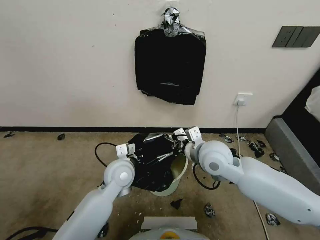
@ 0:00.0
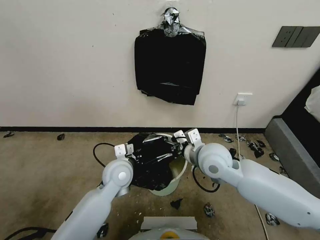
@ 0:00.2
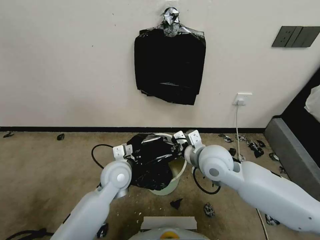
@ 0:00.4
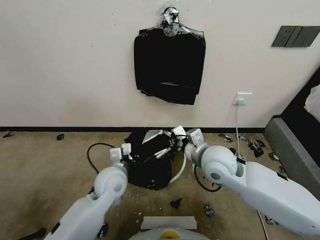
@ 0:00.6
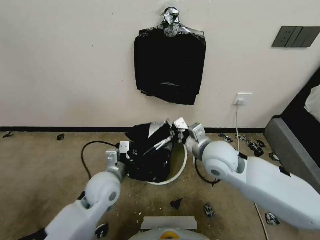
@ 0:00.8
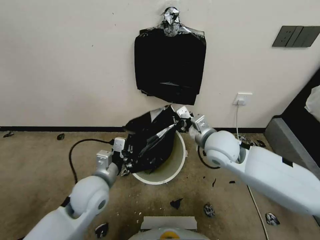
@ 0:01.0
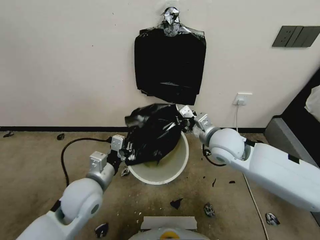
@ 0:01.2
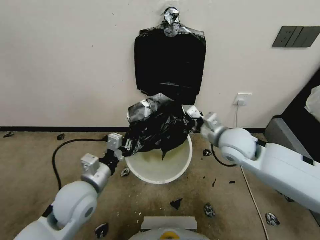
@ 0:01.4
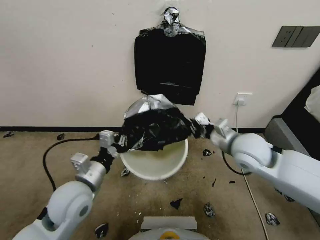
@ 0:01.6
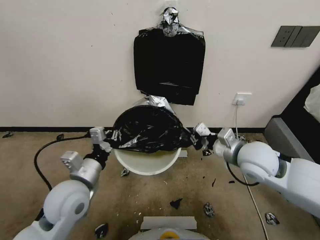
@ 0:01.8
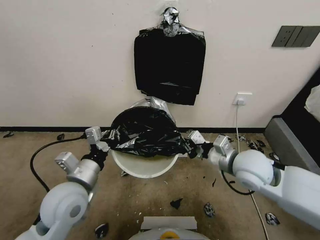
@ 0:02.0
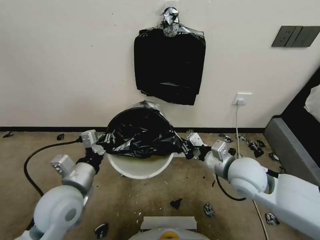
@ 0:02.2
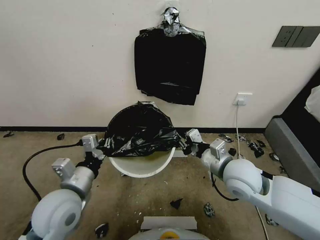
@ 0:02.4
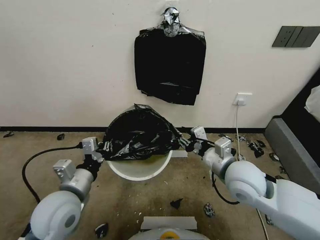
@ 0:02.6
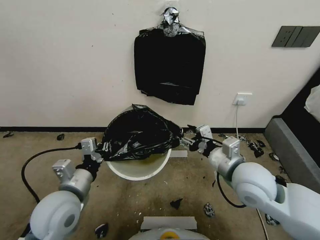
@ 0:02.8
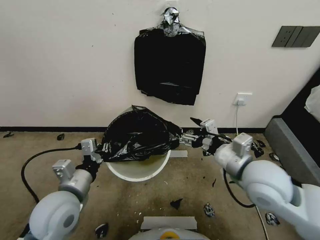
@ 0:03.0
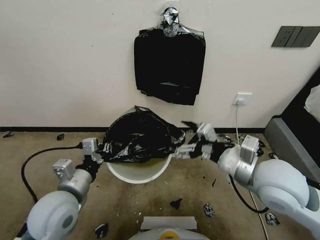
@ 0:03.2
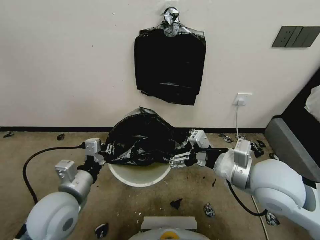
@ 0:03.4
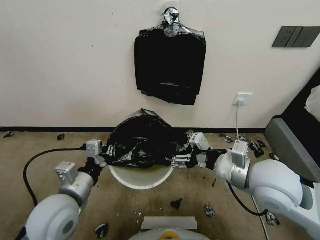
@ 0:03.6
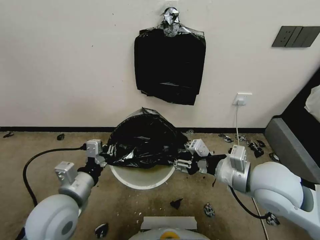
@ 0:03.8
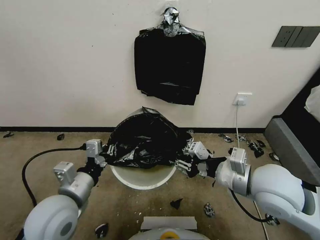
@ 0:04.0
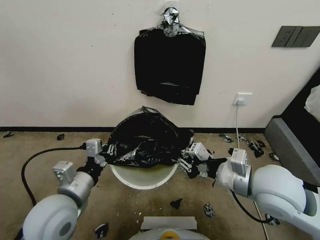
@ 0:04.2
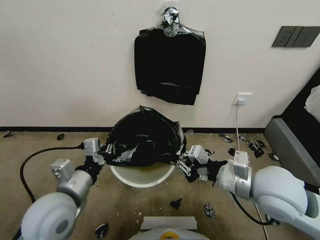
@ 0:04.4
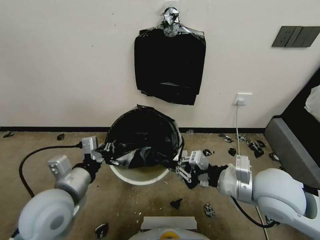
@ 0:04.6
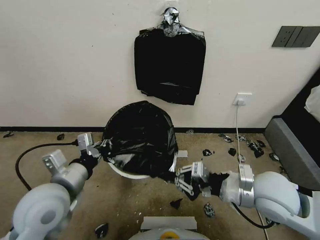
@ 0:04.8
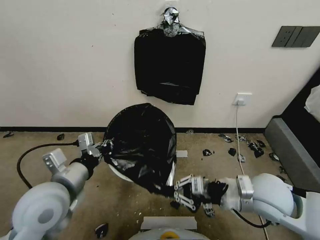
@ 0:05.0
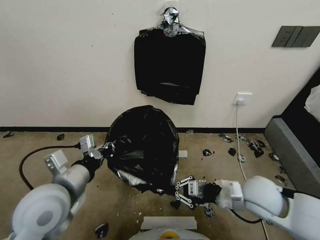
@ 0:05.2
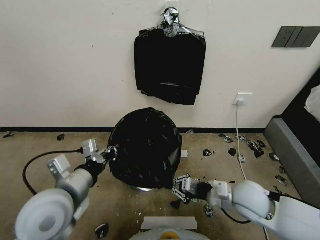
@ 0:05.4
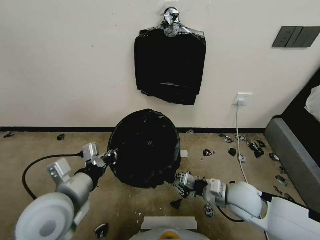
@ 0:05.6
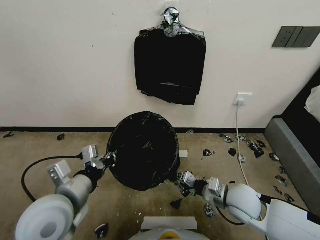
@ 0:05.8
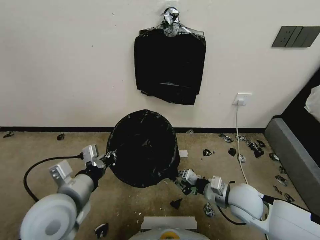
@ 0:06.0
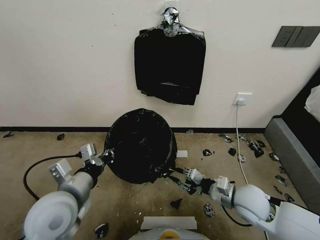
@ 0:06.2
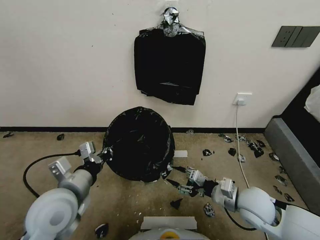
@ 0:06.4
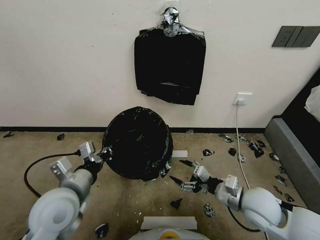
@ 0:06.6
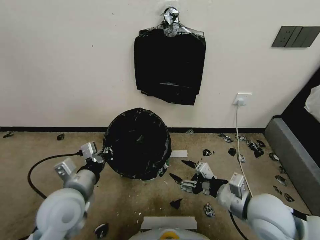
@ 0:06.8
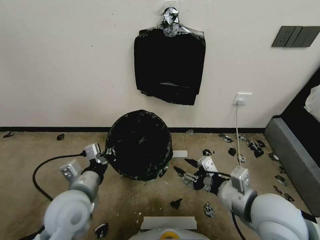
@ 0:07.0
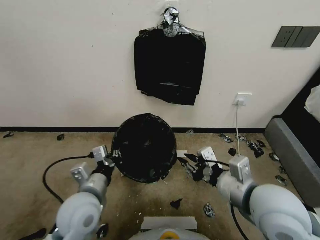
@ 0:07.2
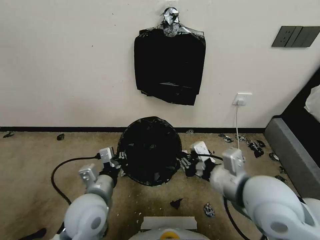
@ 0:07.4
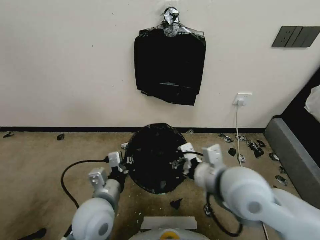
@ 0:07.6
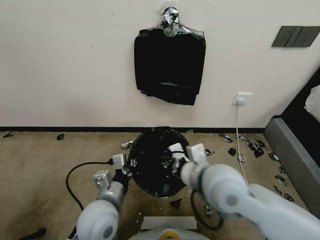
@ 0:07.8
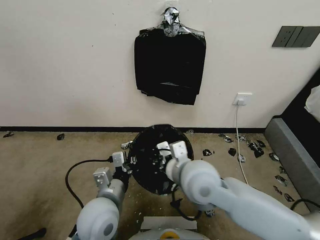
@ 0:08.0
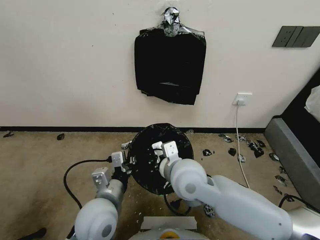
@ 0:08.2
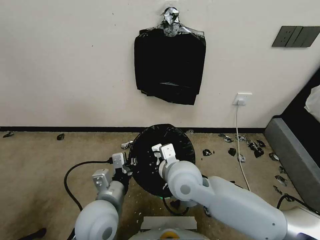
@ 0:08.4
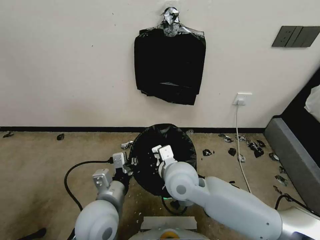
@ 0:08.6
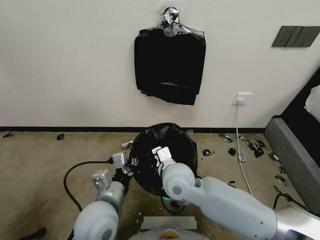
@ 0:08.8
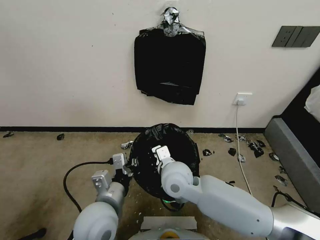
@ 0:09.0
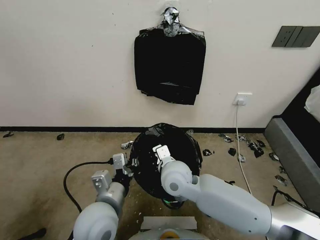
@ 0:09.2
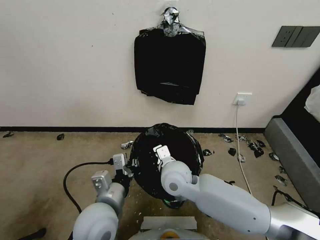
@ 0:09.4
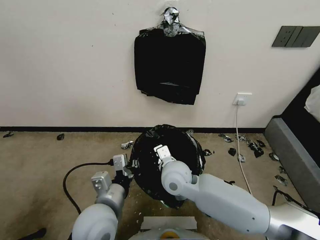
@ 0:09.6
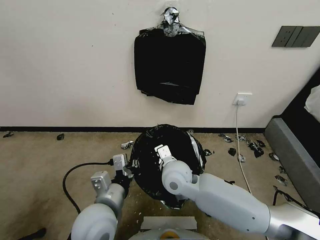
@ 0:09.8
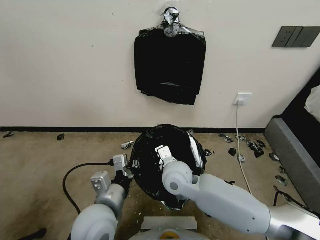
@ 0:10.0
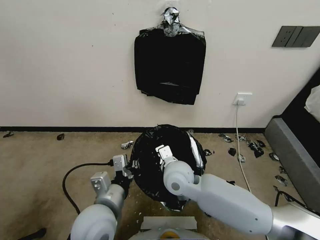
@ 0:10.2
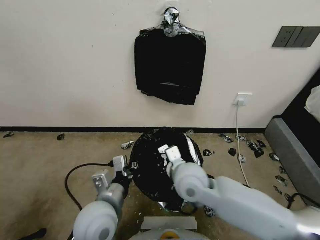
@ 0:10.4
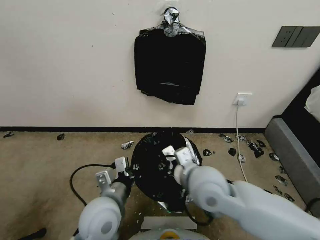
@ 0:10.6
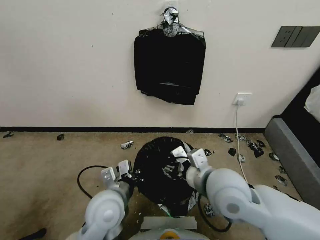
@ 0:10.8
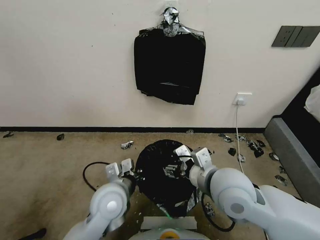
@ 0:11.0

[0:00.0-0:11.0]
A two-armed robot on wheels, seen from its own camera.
Task of the whole recording: Place a trash bag onto the trash bin.
0:00.0 to 0:01.6: The right gripper goes roughly 10 cm to the right. The left gripper goes some 15 cm to the left, backward and upward.
0:01.6 to 0:03.2: The right gripper travels backward by about 10 cm, and opens.
0:03.2 to 0:04.8: The right gripper travels downward by about 5 cm, and closes up.
0:04.8 to 0:06.2: The right gripper travels downward by approximately 15 cm.
0:06.2 to 0:07.8: The right gripper goes some 20 cm upward and to the left, and opens, then closes once more; the left gripper shifts roughly 10 cm to the right and downward.
0:07.8 to 0:09.4: The right gripper is displaced downward, to the left and forward by roughly 15 cm.
0:09.4 to 0:11.0: The left gripper goes roughly 5 cm forward, while the right gripper is displaced to the right, upward and backward by roughly 15 cm, and opens.

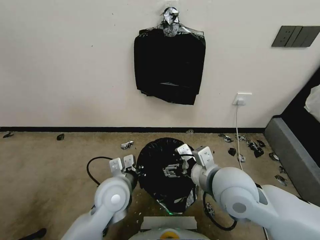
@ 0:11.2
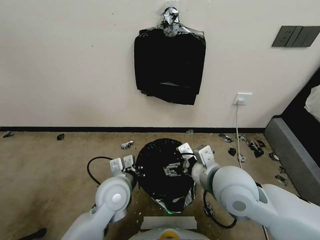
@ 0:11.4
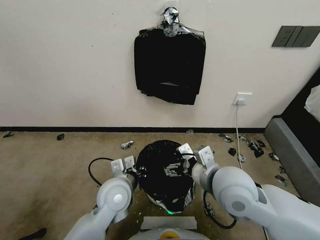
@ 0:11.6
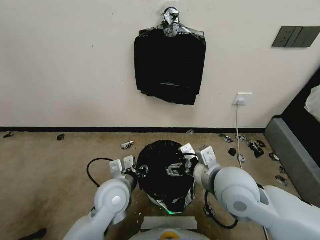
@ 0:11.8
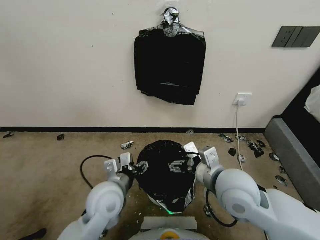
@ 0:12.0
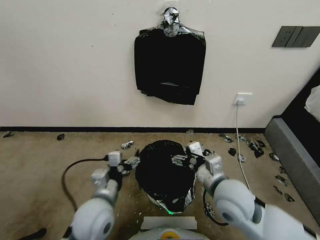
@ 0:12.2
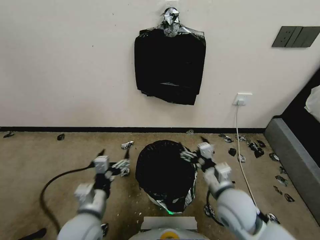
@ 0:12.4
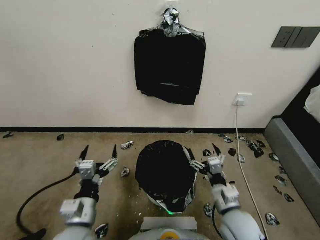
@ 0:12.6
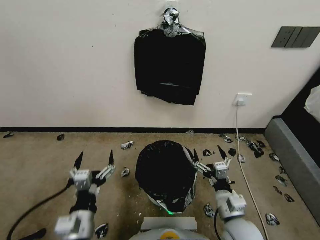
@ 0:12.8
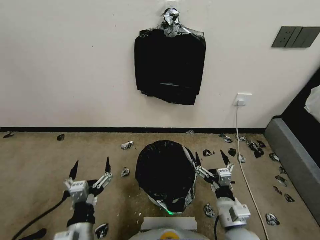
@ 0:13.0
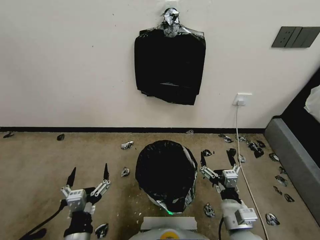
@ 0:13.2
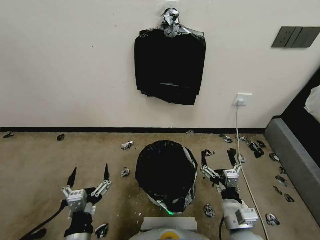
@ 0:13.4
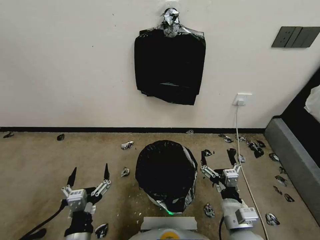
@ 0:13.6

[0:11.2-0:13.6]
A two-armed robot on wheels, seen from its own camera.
Task of the whole recording: Place a trash bag onto the trash bin.
0:11.2 to 0:12.4: The left gripper goes approximately 10 cm backward and to the left, and opens up. The right gripper shifts approximately 10 cm downward.
0:12.4 to 0:13.6: The left gripper is displaced backward by approximately 10 cm. The right gripper goes approximately 10 cm backward and downward.
